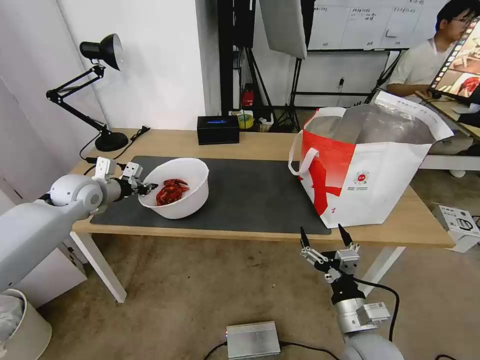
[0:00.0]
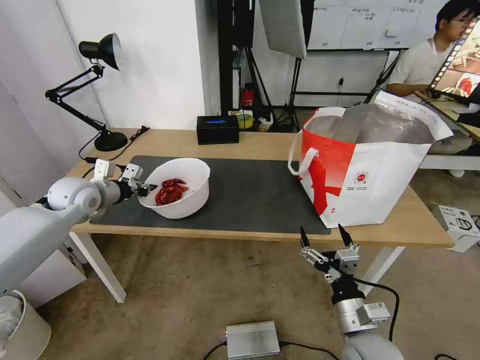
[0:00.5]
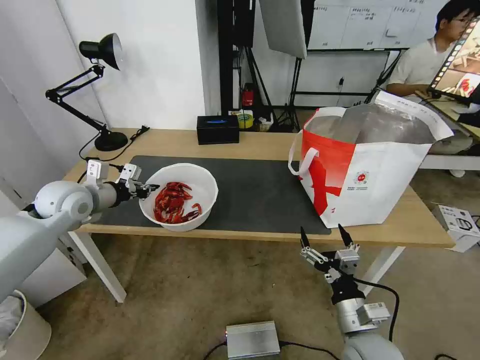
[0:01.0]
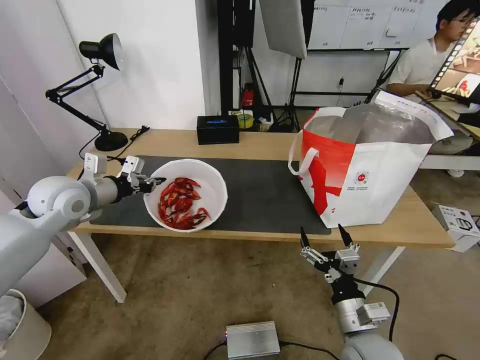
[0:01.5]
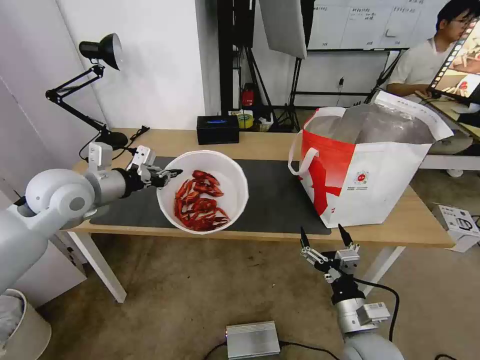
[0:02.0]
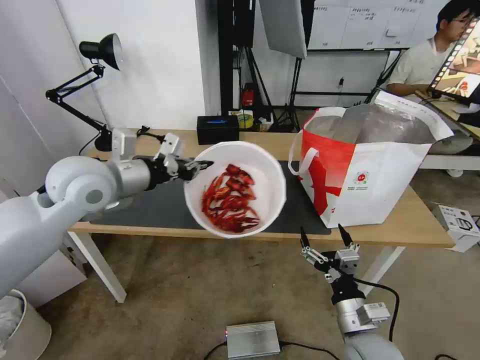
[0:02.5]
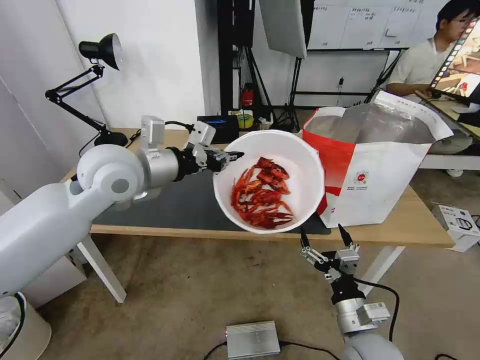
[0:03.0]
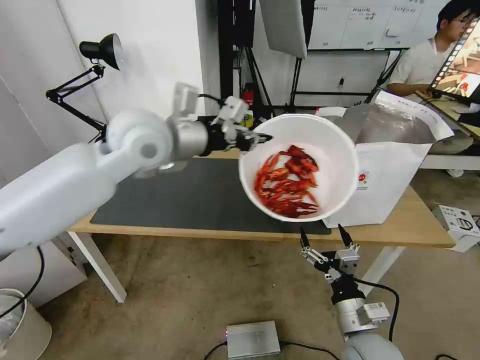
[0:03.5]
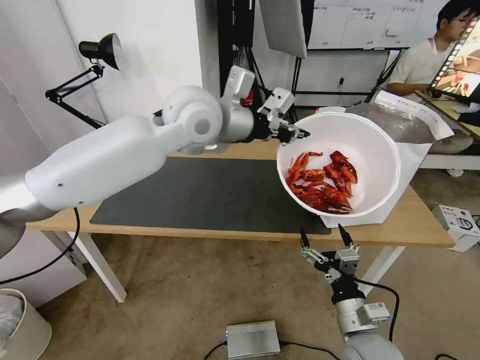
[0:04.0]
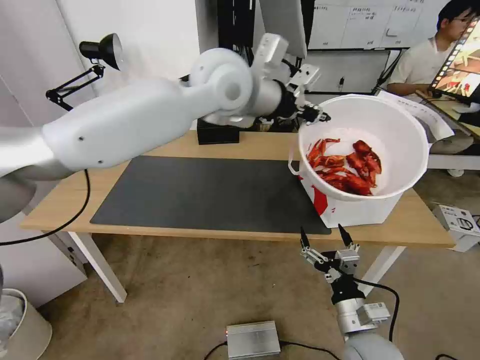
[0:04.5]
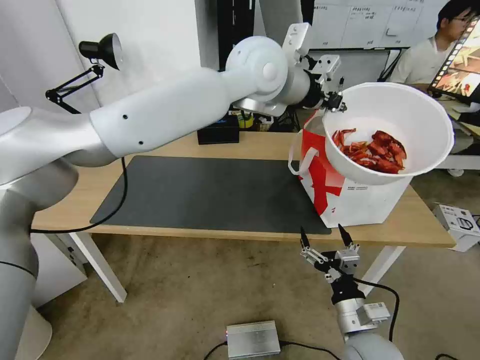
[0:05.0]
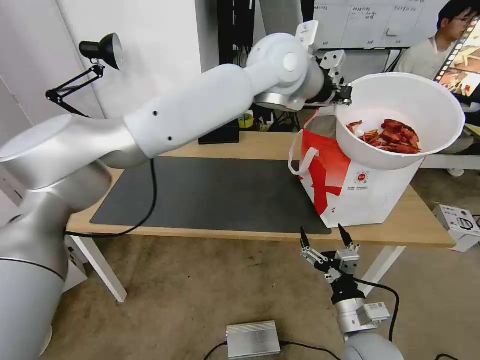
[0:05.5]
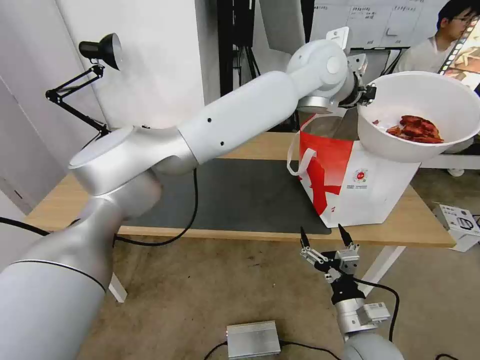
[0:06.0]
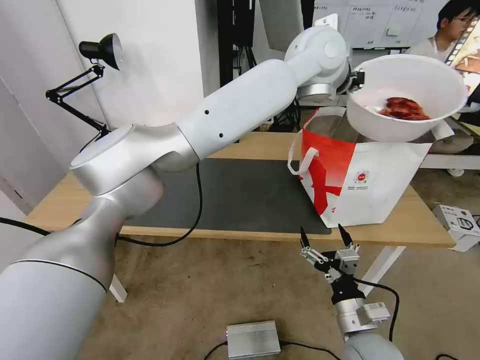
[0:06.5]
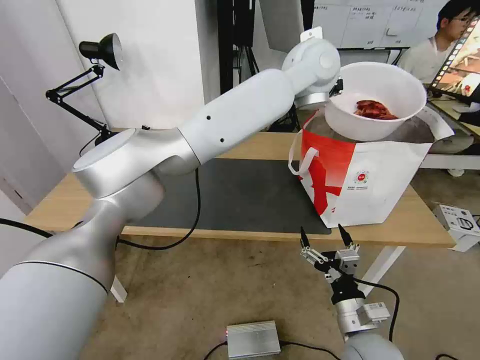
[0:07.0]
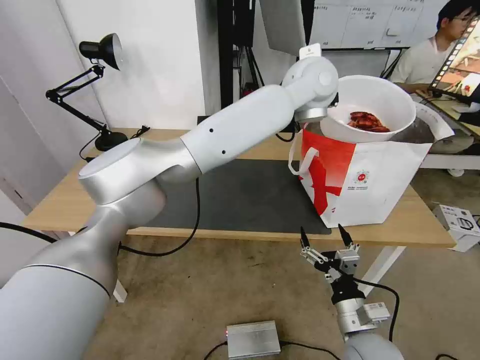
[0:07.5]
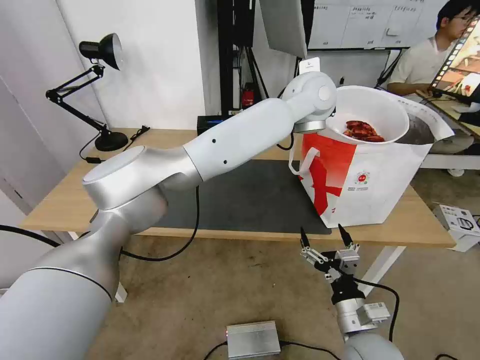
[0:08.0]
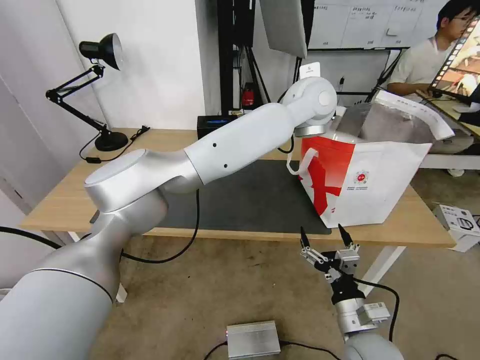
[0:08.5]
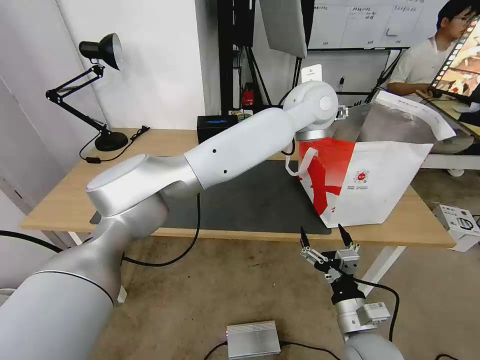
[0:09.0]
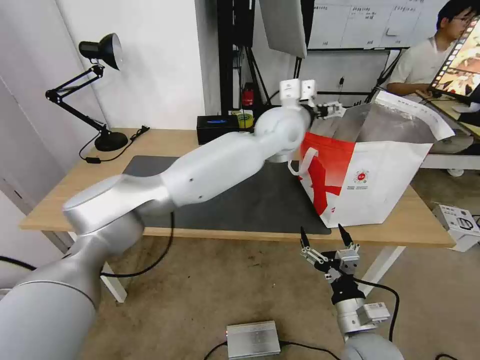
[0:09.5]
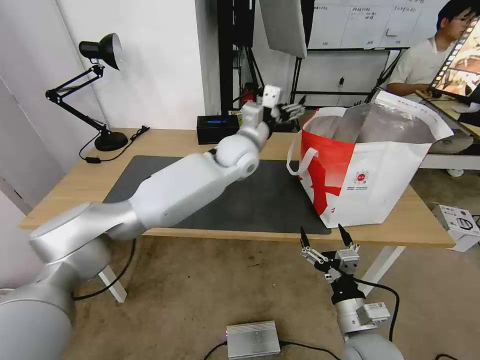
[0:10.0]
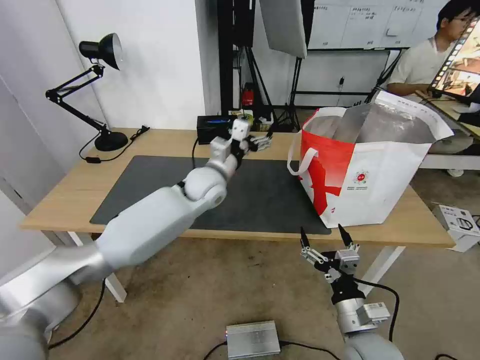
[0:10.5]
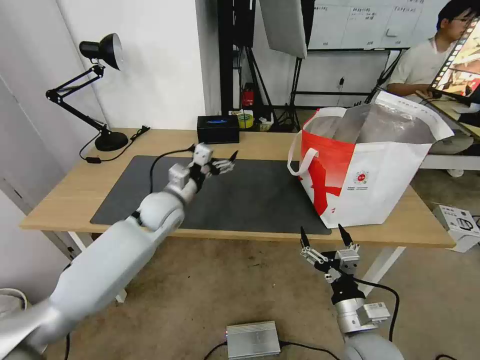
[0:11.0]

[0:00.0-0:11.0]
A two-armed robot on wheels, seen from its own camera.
Task of the whole recording: Pick up the trash from the table and place it into the takeout bag.
0:00.0 to 0:02.0: The left gripper heads backward, upward and to the right, covering roughly 15 cm.
0:02.0 to 0:03.5: The left gripper is displaced to the right and upward by some 20 cm.
0:03.5 to 0:05.5: The left gripper goes approximately 20 cm to the right.
0:05.5 to 0:07.5: The left gripper is displaced to the right by roughly 5 cm.
0:07.5 to 0:09.0: The left gripper opens.
0:09.0 to 0:11.0: The left gripper moves to the left and downward, approximately 40 cm.

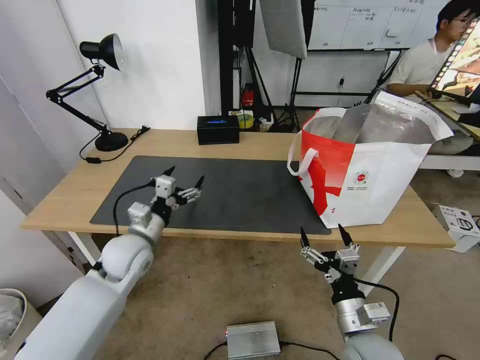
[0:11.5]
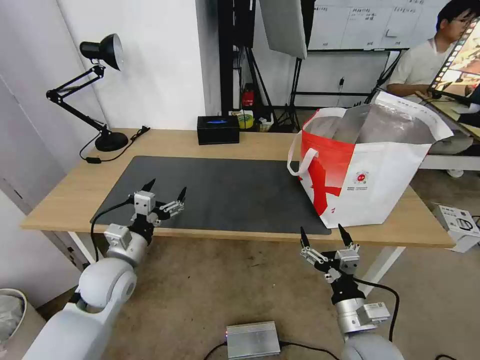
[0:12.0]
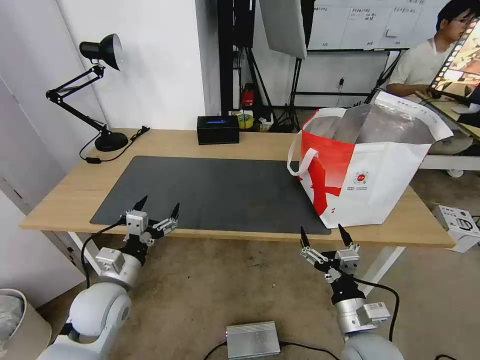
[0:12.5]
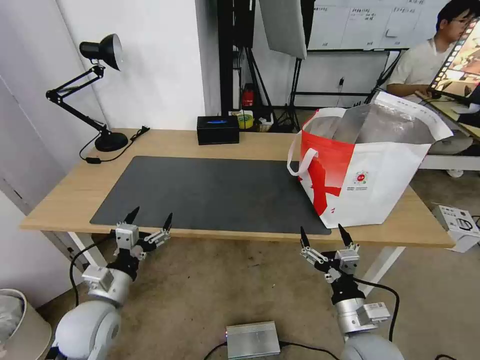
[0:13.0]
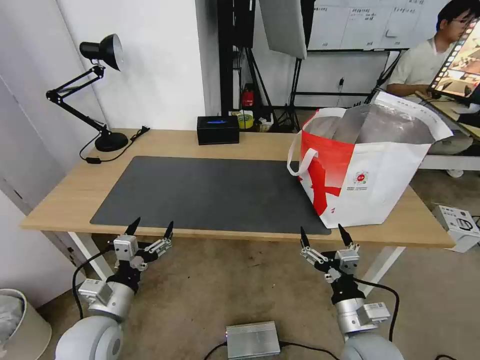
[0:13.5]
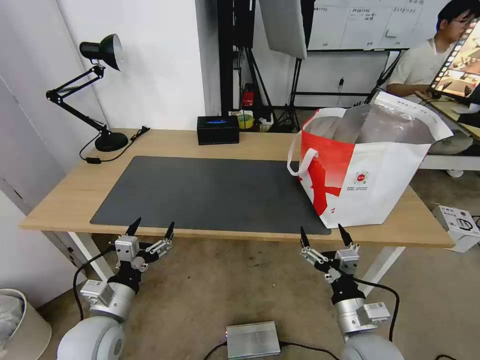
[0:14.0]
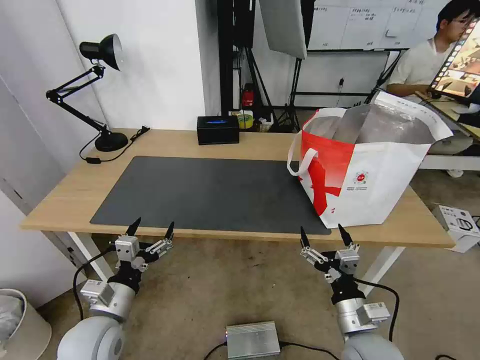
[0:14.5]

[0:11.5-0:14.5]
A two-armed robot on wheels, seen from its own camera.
Task of the whole recording: Pick up the trash from the table and place it into the takeout bag.
0:11.5 to 0:13.0: The left gripper travels backward by roughly 10 cm.
0:13.0 to 0:14.5: The grippers move only a little.

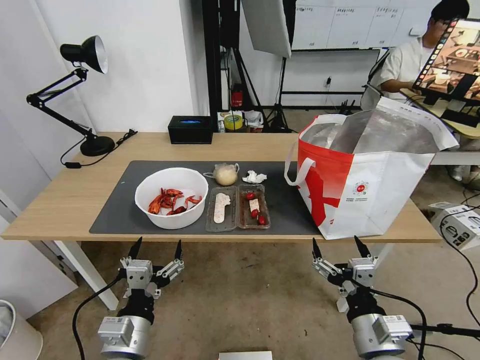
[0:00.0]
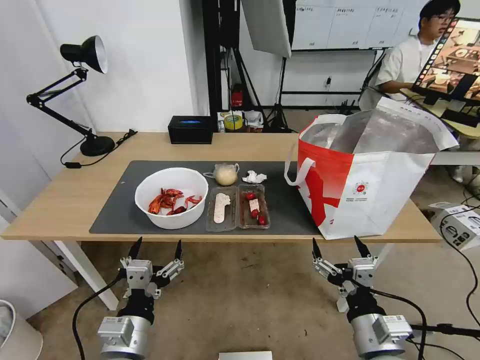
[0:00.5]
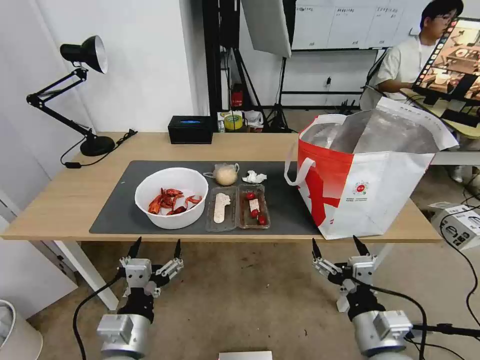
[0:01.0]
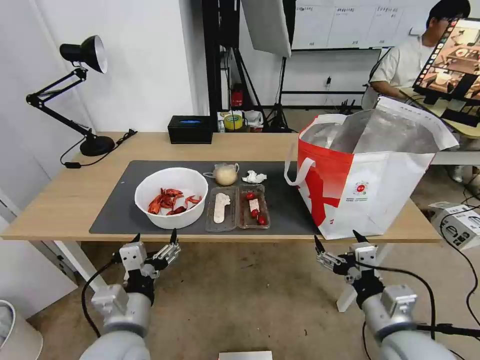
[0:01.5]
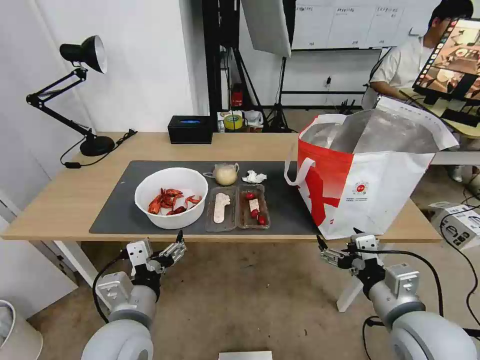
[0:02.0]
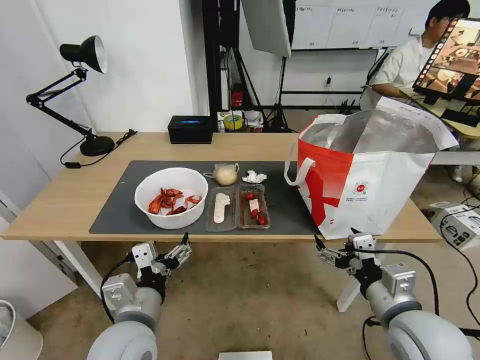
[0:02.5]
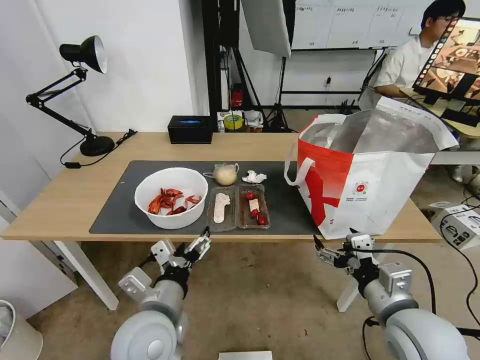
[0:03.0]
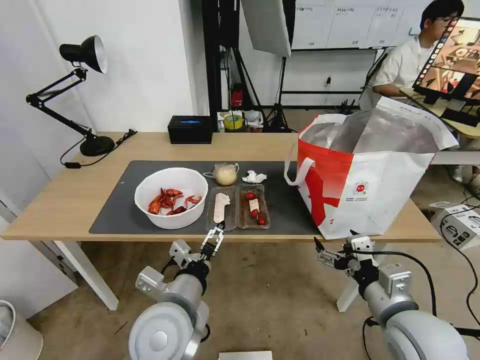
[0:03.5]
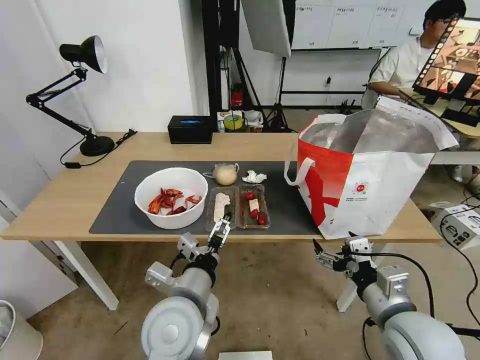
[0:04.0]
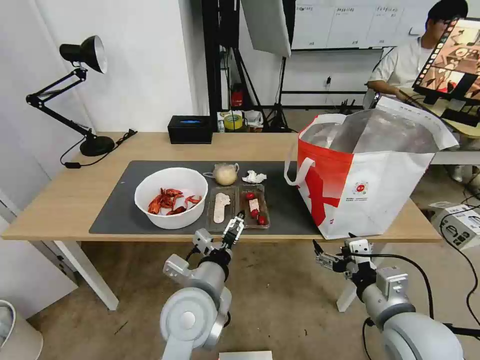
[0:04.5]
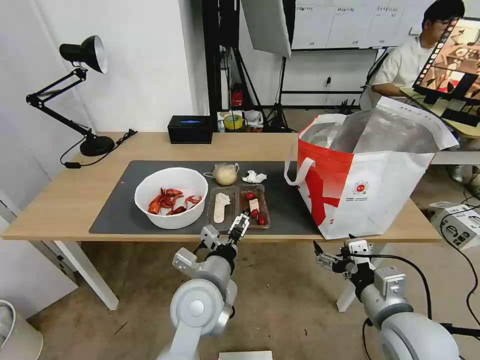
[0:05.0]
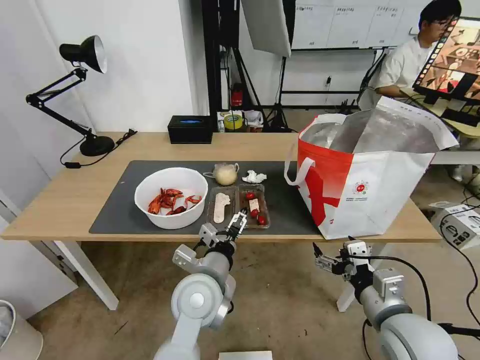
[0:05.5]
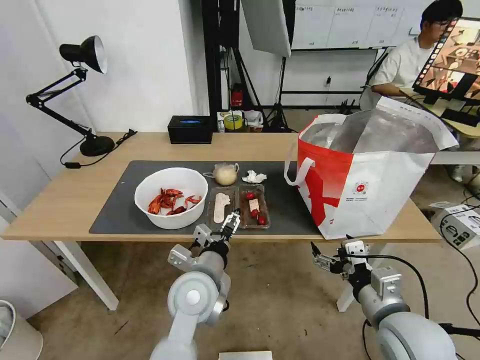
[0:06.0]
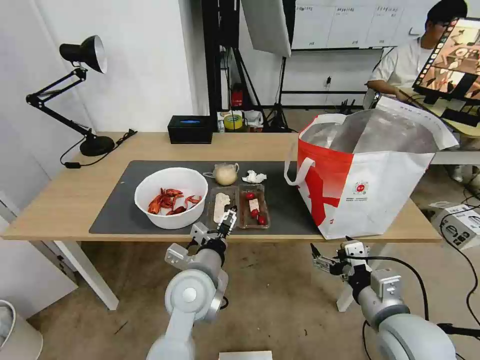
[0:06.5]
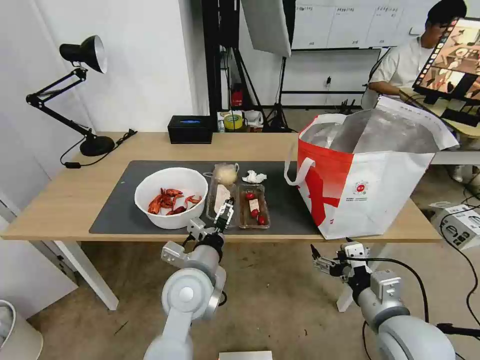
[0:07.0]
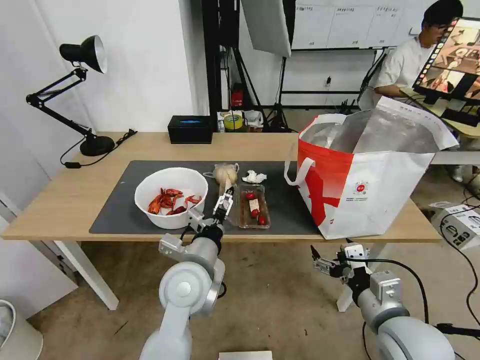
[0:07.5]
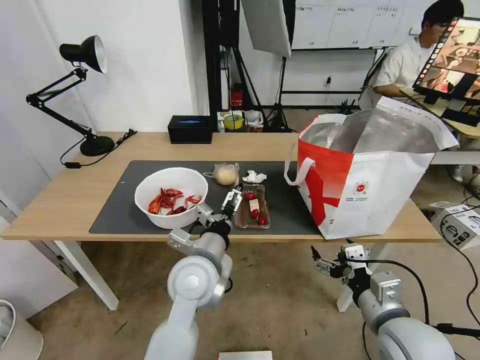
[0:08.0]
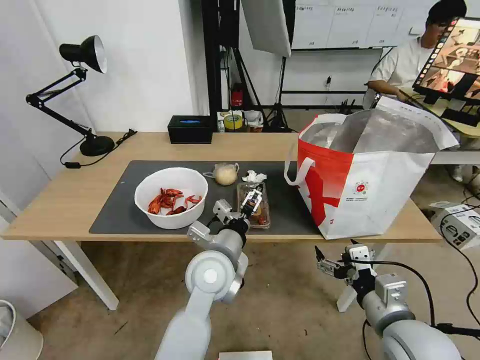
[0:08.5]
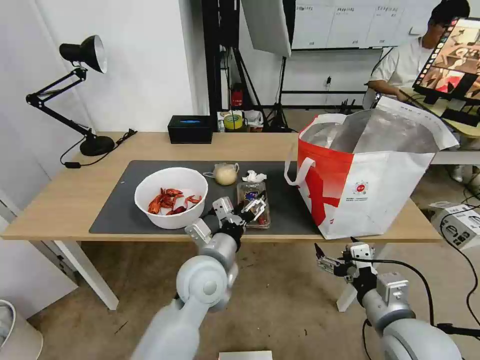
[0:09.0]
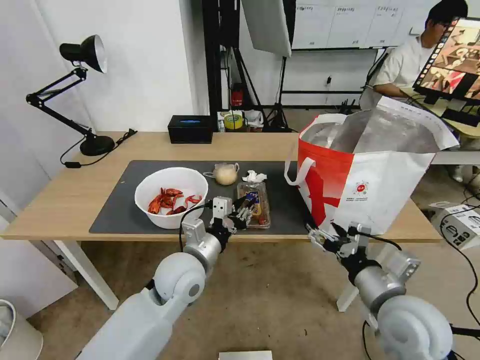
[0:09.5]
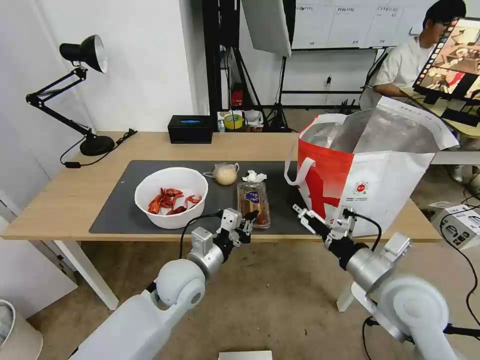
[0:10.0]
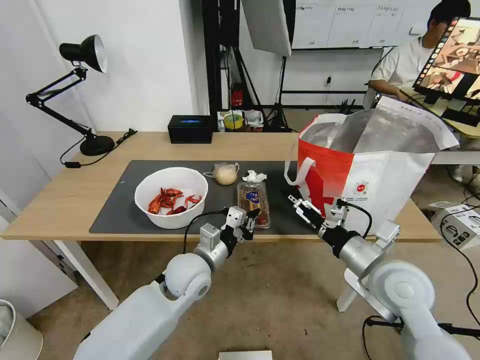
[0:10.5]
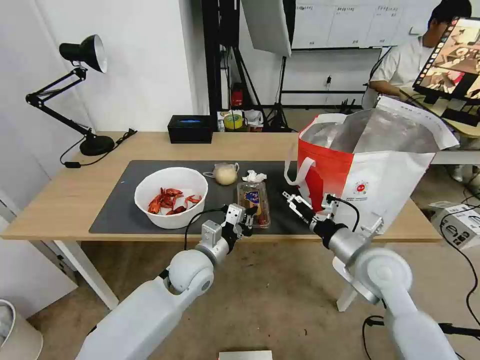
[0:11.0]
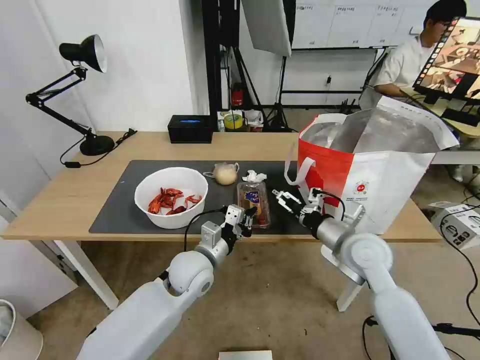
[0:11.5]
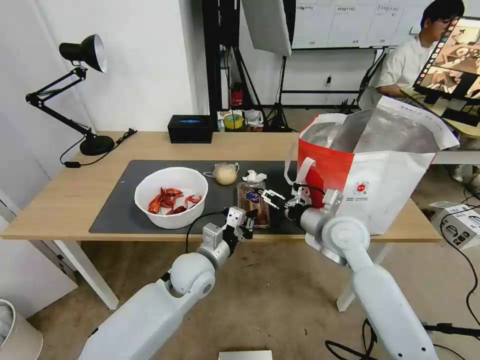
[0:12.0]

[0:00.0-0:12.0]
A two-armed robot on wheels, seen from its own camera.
Task of the whole recording: Pick up the trash from the table and place it into the takeout bag.
0:02.0 to 0:04.0: The left gripper shifts about 10 cm to the right.
0:04.0 to 0:06.0: The left gripper moves forward, some 5 cm.
0:06.0 to 0:08.0: The grippers make only small movements.
0:08.0 to 0:10.0: The left gripper moves some 5 cm, and closes. Meanwhile the right gripper travels forward by roughly 5 cm.
0:10.0 to 0:12.0: The right gripper moves forward, roughly 15 cm.
